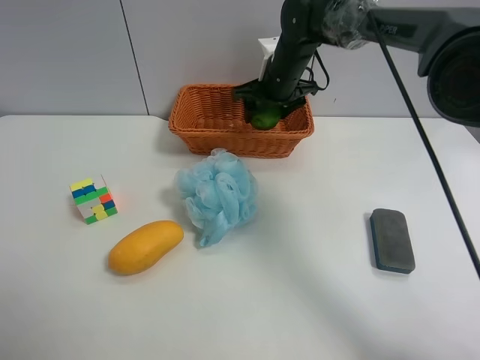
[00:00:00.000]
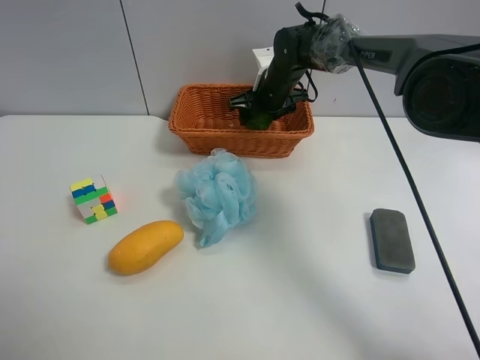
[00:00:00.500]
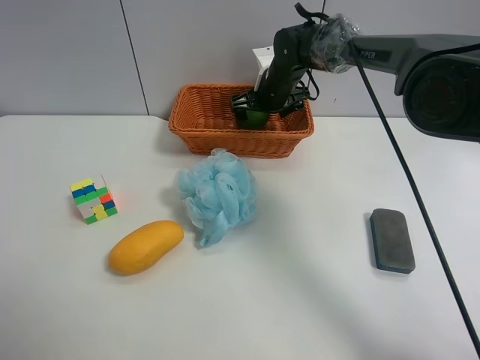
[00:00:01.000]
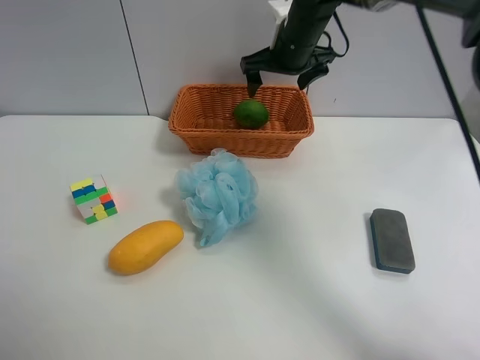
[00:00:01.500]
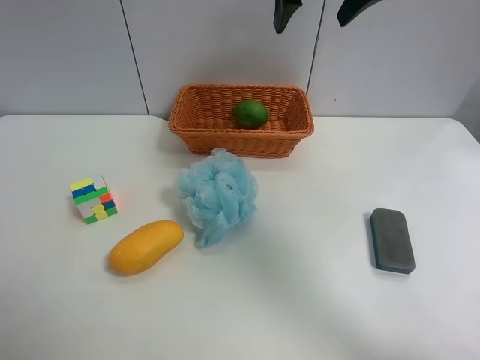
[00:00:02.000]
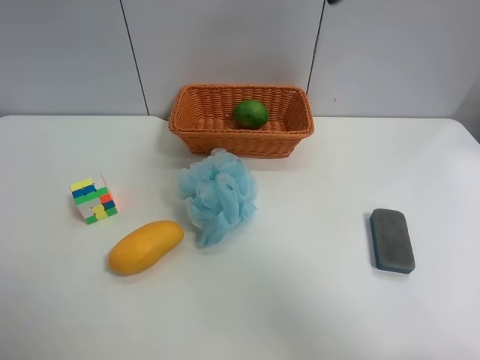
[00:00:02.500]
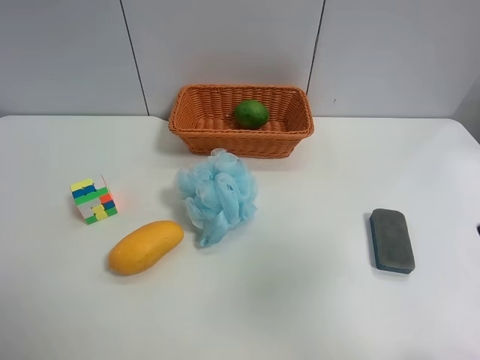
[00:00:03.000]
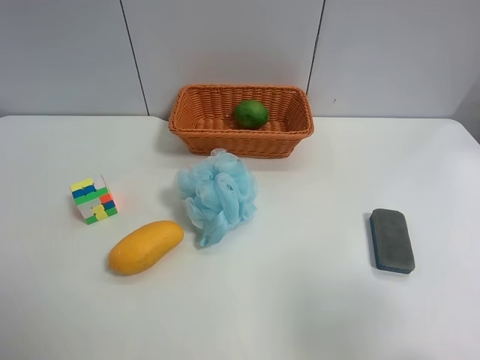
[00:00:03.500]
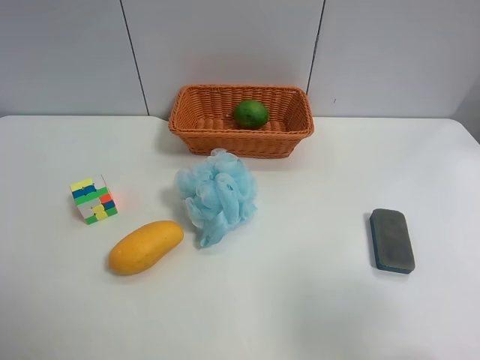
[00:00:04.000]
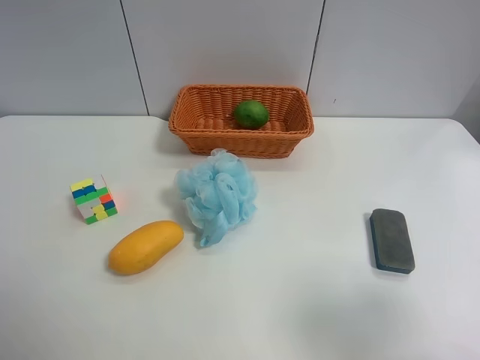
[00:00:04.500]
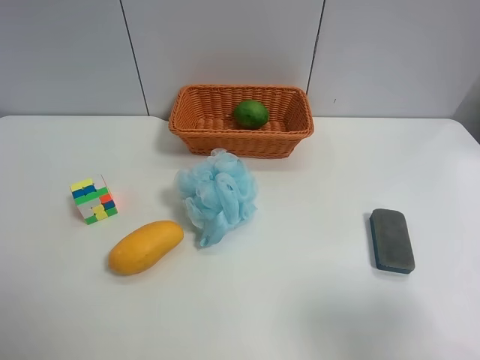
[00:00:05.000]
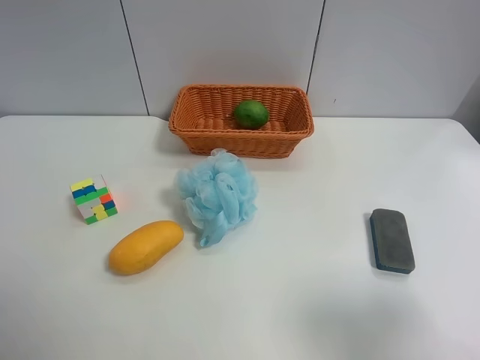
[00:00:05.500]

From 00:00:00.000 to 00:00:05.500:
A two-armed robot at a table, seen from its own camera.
Task of the whole recording: Randomly grab green lemon or mangoes from the table and put them in a basket.
From 00:00:00.000 to 00:00:02.000: The right gripper is displaced upward and backward by approximately 25 cm, and opens its fingers.
From 00:00:02.000 to 00:00:03.500: The right gripper shifts about 35 cm backward.

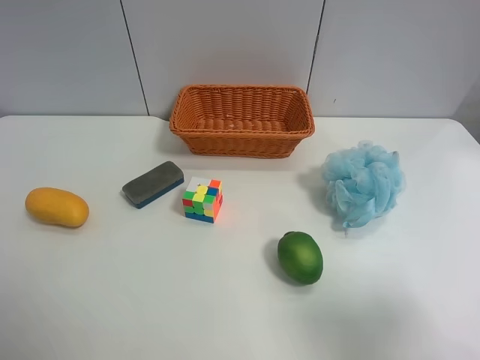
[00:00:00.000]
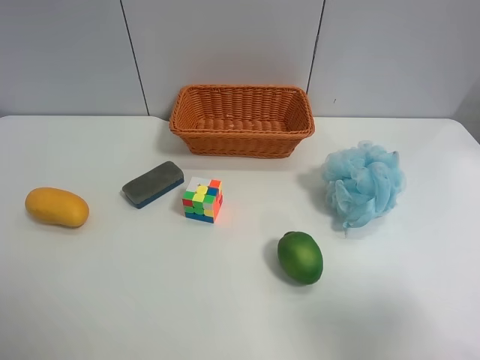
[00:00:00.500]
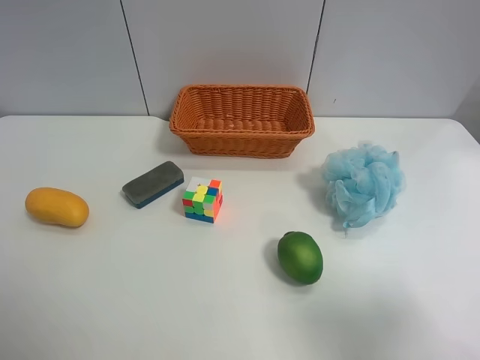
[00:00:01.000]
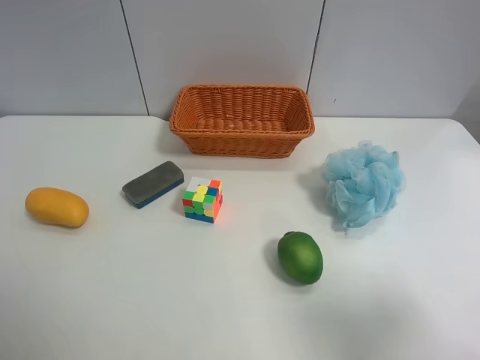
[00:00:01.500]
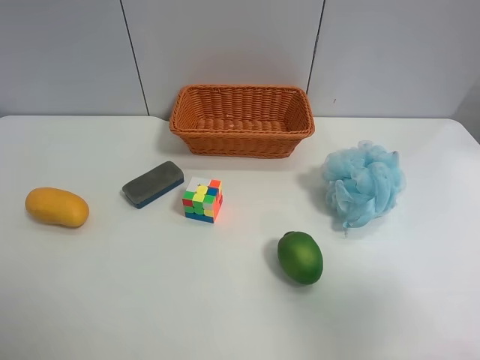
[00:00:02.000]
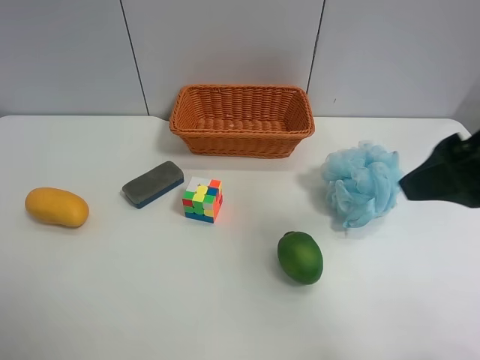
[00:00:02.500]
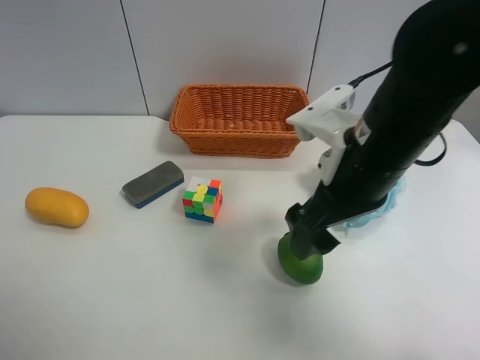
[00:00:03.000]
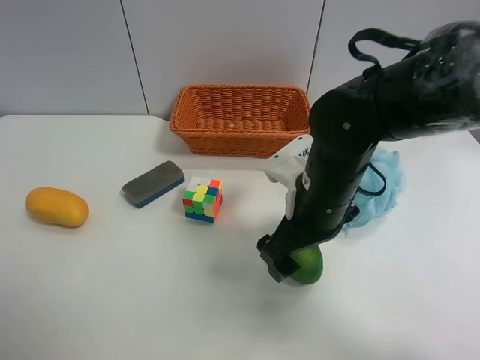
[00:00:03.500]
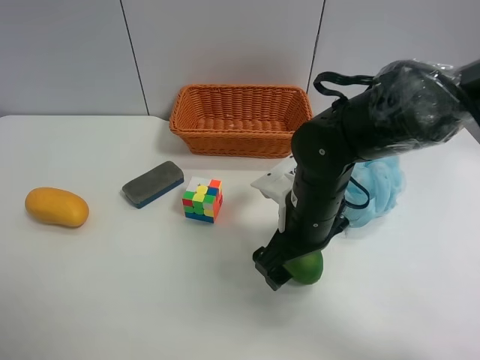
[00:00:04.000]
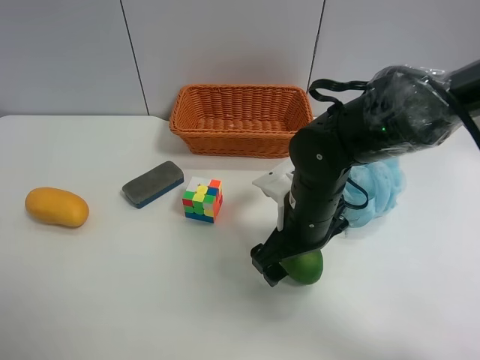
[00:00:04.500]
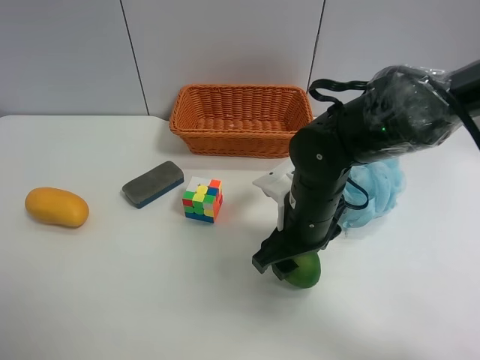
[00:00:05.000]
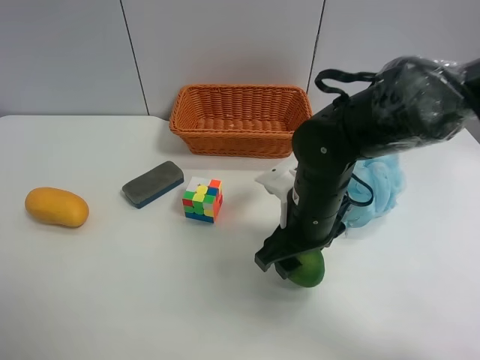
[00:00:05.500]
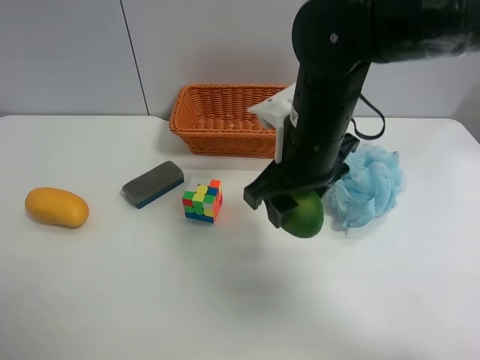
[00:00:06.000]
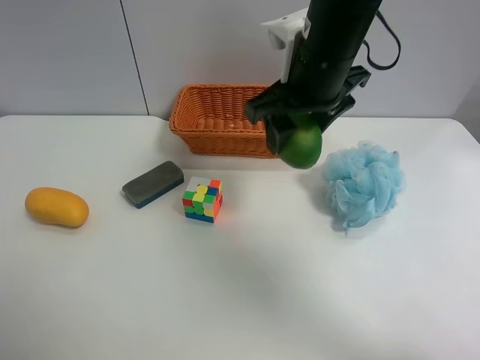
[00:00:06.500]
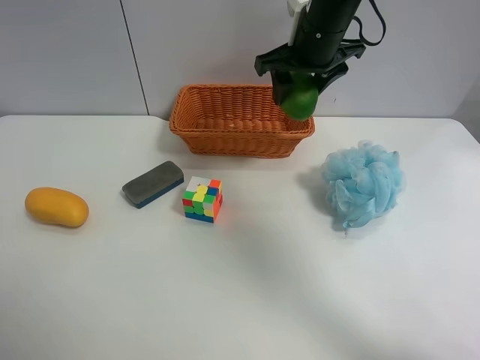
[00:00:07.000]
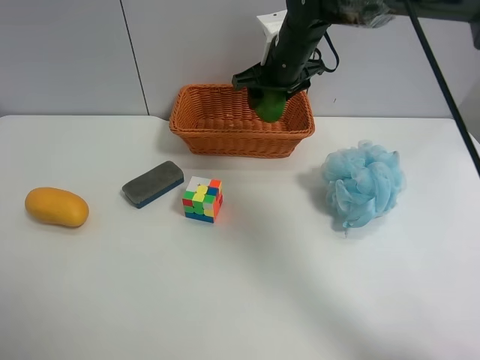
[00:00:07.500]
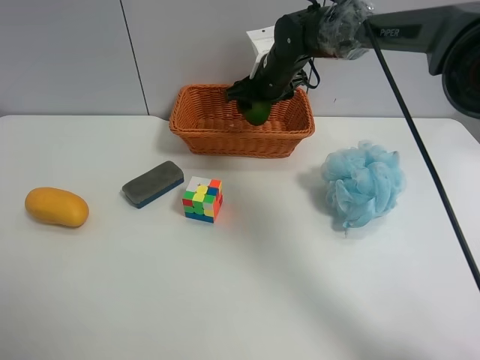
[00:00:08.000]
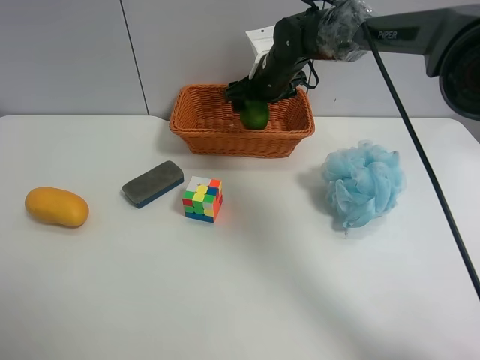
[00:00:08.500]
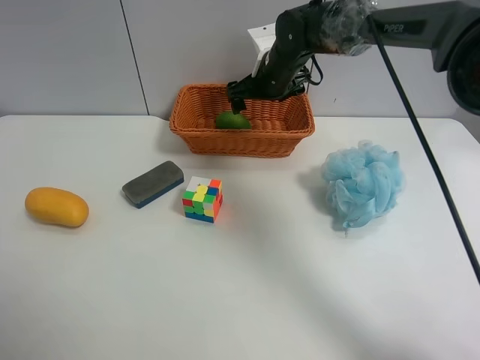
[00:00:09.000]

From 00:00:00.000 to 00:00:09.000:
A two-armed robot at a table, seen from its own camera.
Task of the whole recording: Randomly grab green lemon or mangoes from the table and put them in a basket.
Step, from 00:00:00.000 to 00:00:05.000: Grasp the Lemon with the right gripper.
From 00:00:02.000 to 00:00:04.500: The right gripper goes about 35 cm forward, to the left and downward.
From 00:00:04.500 to 00:00:07.000: The right gripper moves forward and upward, roughly 25 cm, and closes up.
From 00:00:07.000 to 00:00:09.000: The right gripper shifts approximately 10 cm downward and forward, and opens.

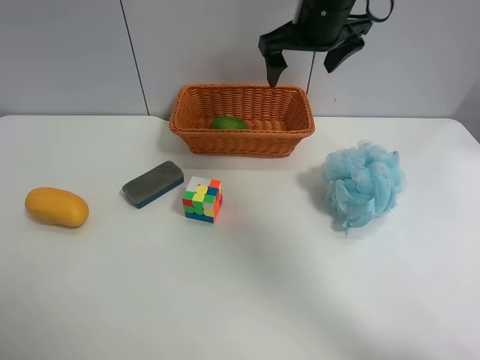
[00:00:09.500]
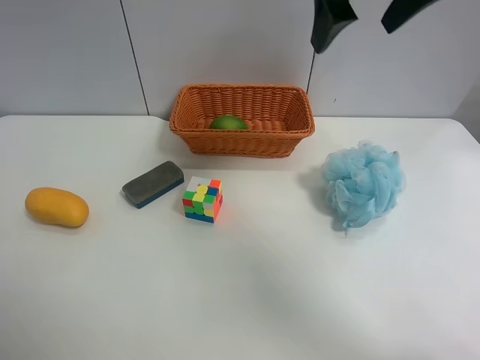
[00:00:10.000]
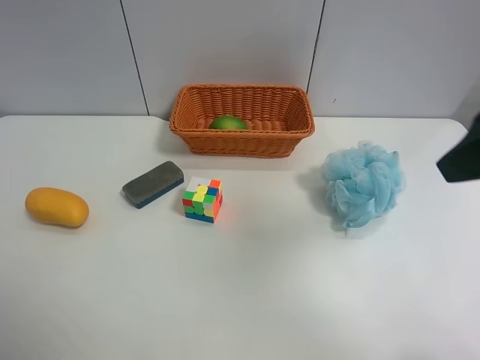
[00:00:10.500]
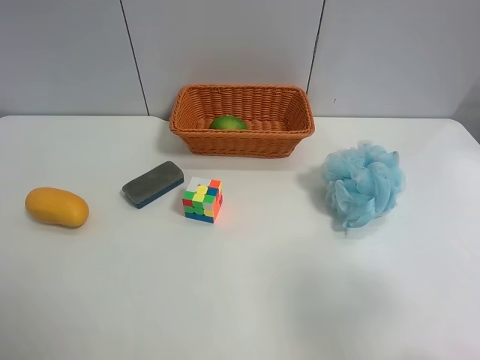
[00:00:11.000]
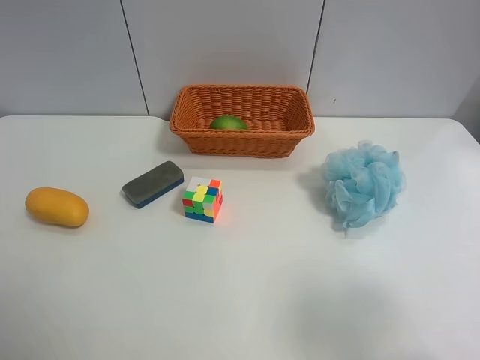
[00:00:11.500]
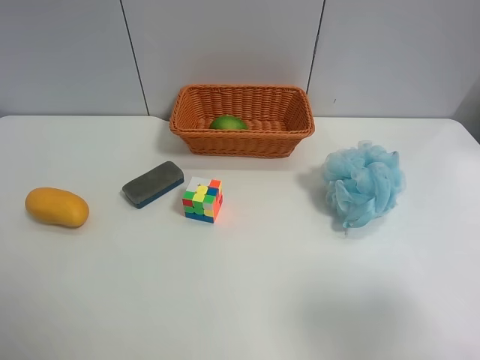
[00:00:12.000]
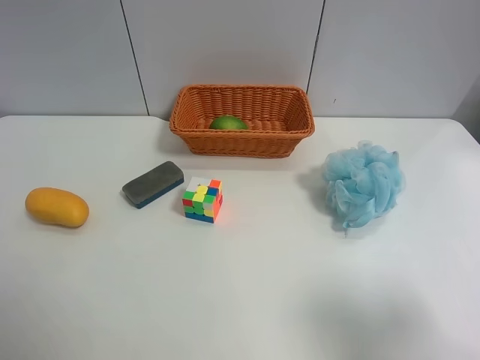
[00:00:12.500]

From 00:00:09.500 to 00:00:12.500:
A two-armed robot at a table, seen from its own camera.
Task of the whole recording: Randomly grab green lemon or mangoes from the table and put them in a basket.
From 00:00:09.500 to 00:00:11.000: The right gripper heads backward and to the right, covering roughly 40 cm.
